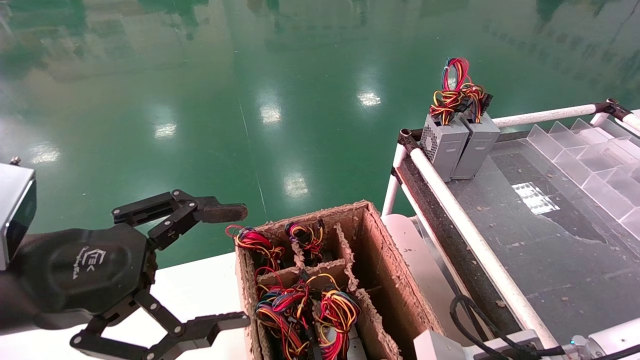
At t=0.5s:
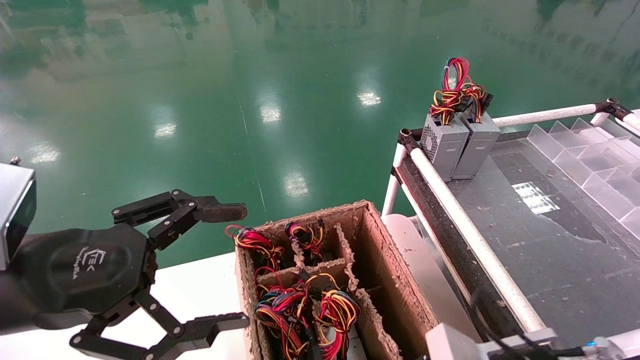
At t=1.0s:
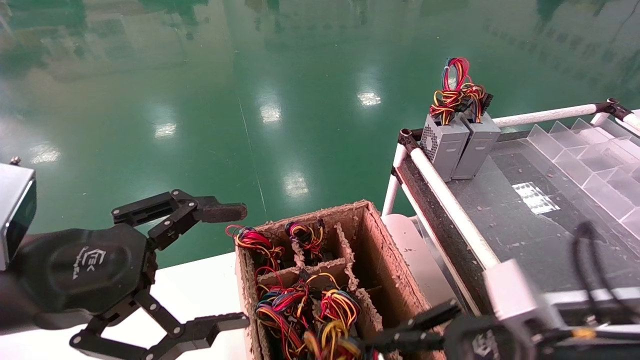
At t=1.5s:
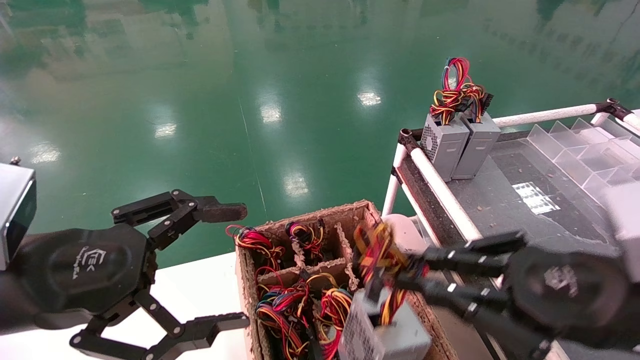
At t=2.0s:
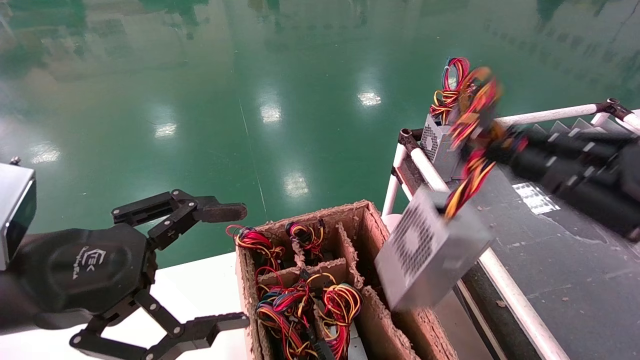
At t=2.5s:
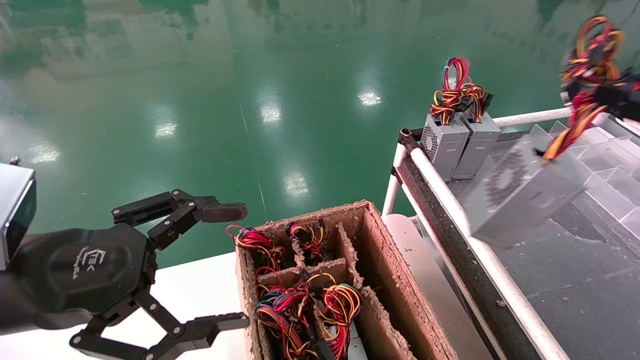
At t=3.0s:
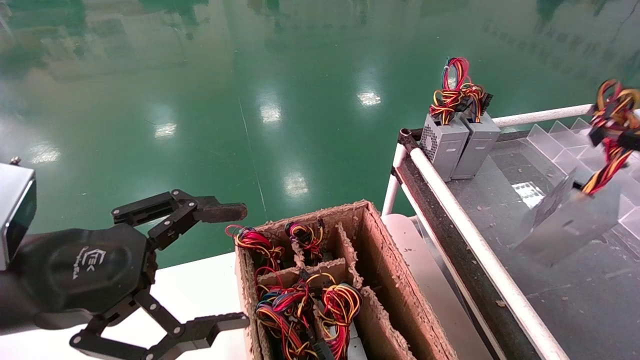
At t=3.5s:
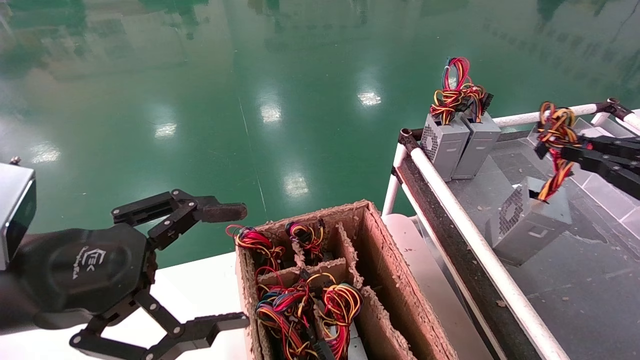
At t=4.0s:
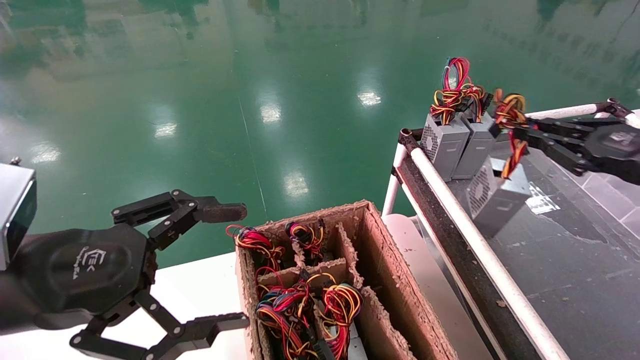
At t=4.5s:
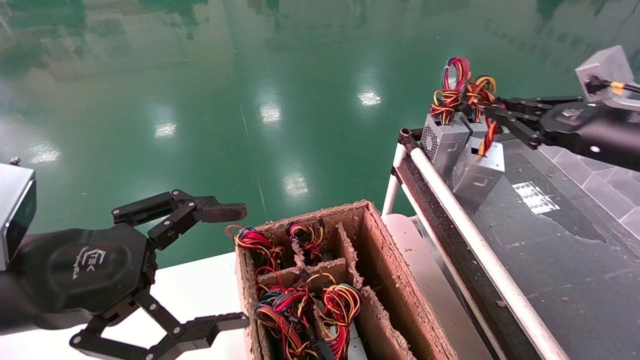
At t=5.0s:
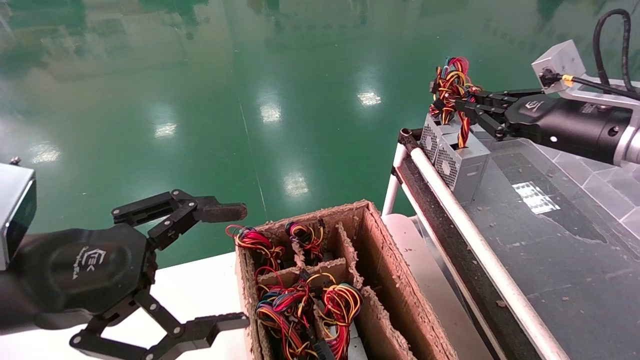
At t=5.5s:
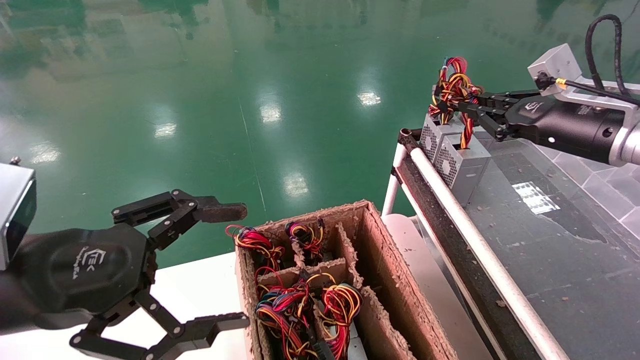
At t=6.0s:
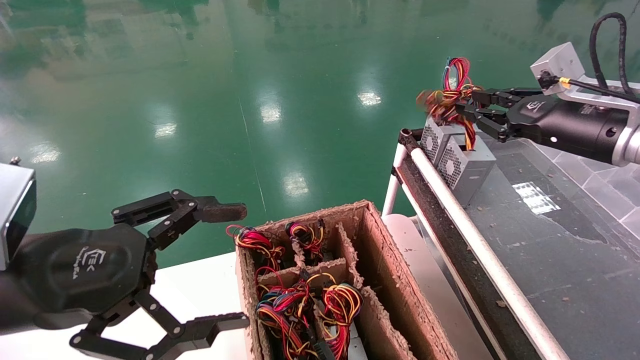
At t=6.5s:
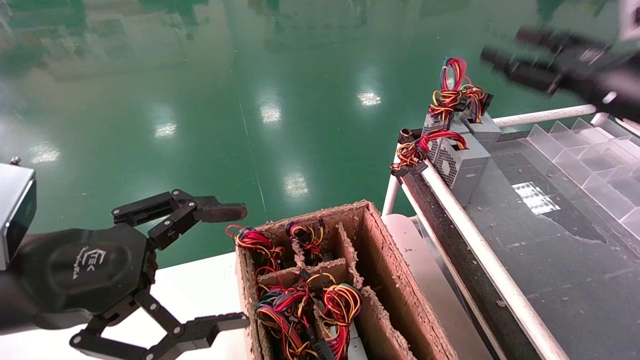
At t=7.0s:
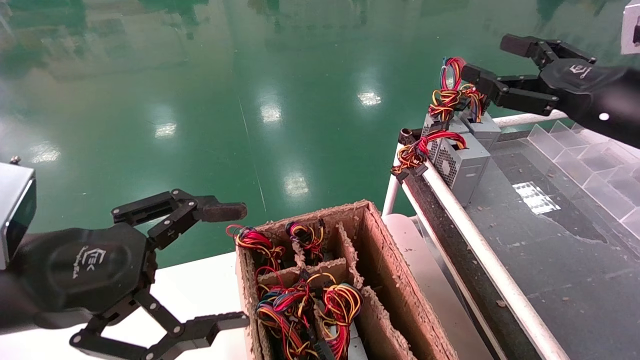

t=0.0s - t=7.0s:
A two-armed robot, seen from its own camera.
Step, t=1.0s - t=5.5s: Place the power supply on the operating table.
t=0.0s - t=2.0s: The right gripper travels upward and to the right by some 25 cm.
t=2.0s - t=3.5s: The right gripper shifts some 15 cm to the right and forward.
t=3.5s - t=5.0s: The right gripper moves forward and to the left, about 15 cm.
t=5.0s - t=7.0s: The right gripper moves backward, some 5 cm, and opens up.
